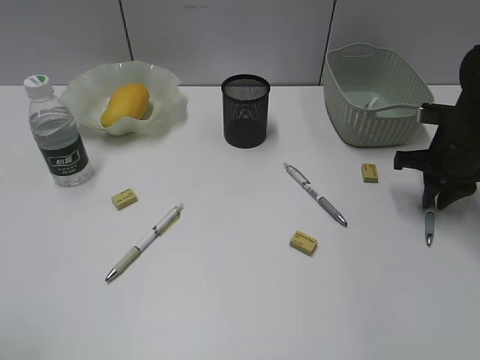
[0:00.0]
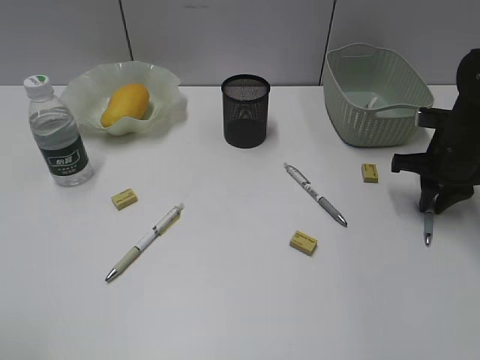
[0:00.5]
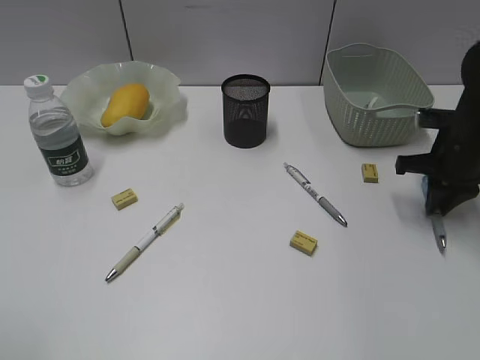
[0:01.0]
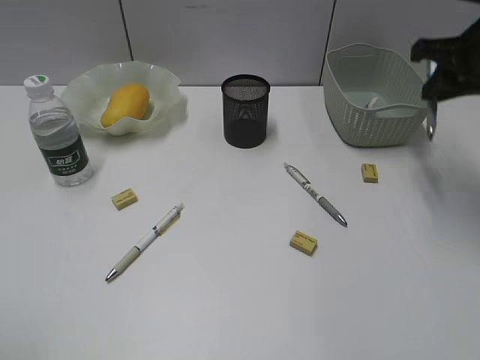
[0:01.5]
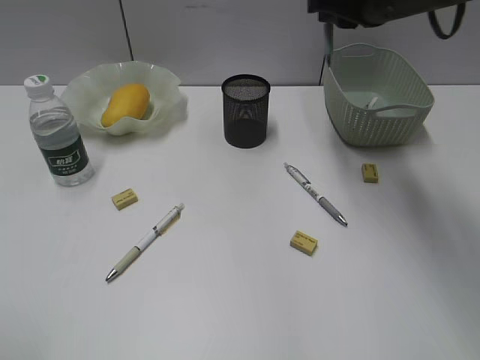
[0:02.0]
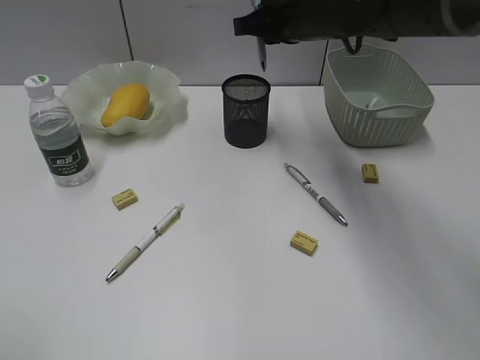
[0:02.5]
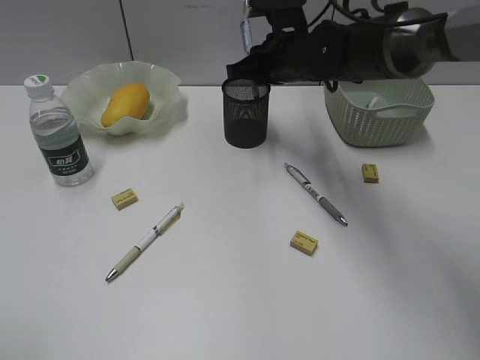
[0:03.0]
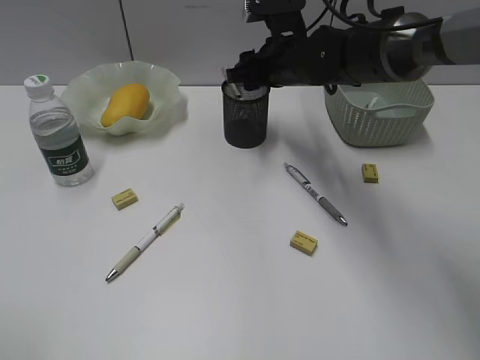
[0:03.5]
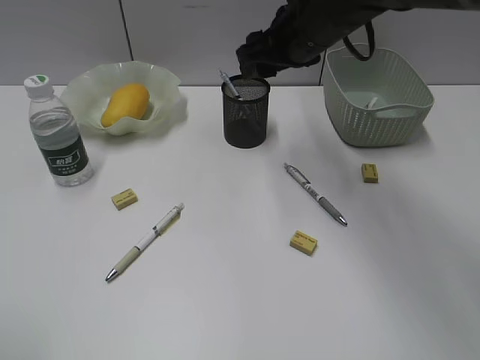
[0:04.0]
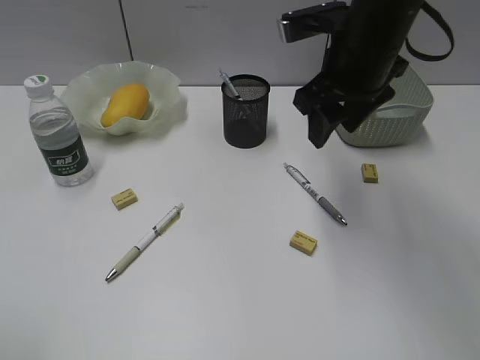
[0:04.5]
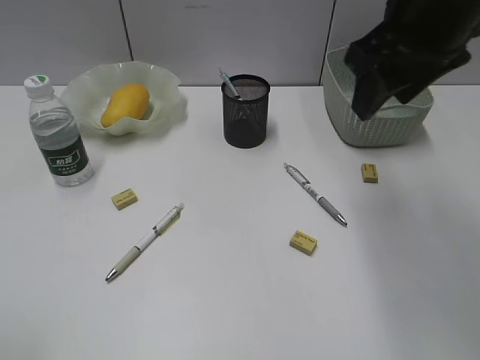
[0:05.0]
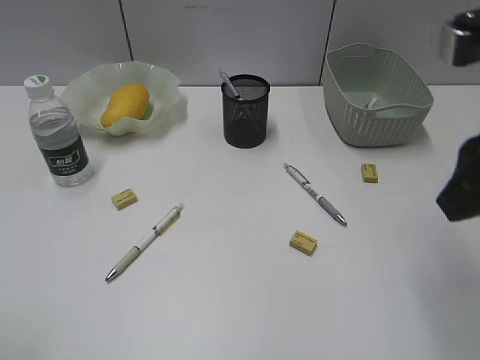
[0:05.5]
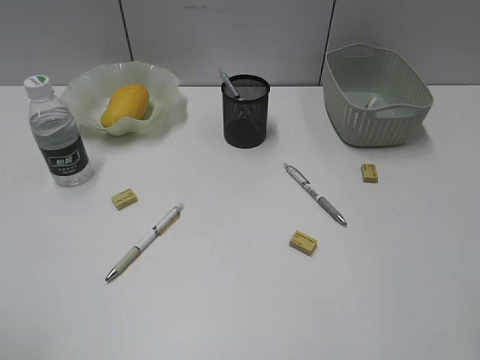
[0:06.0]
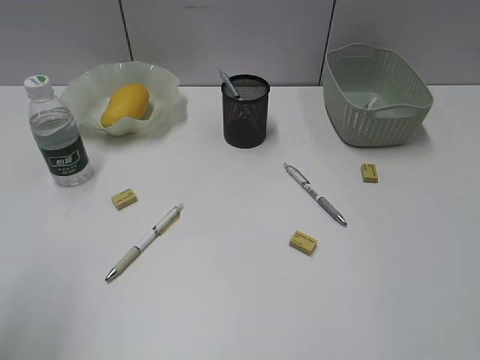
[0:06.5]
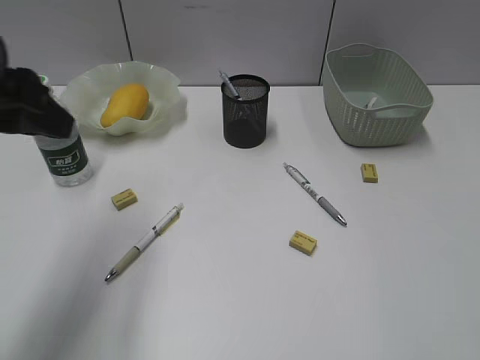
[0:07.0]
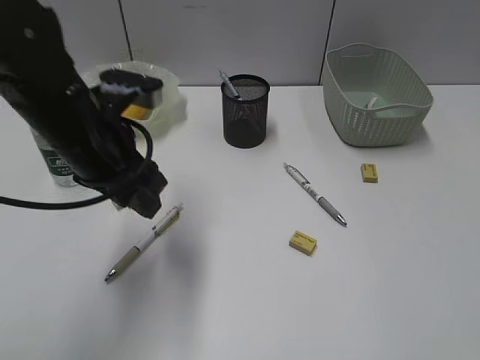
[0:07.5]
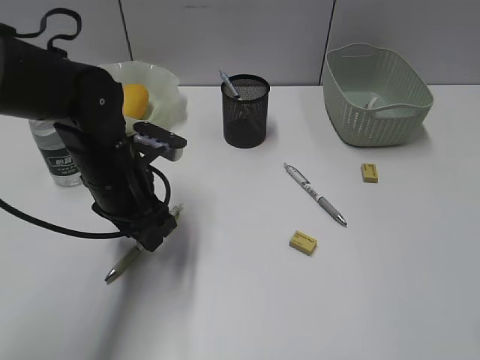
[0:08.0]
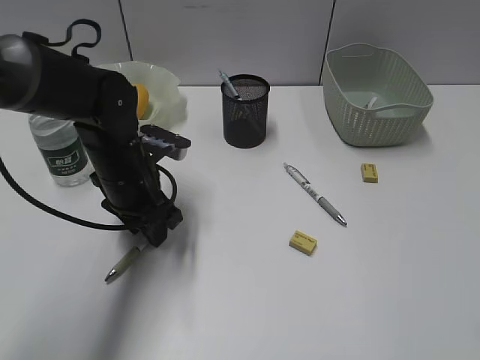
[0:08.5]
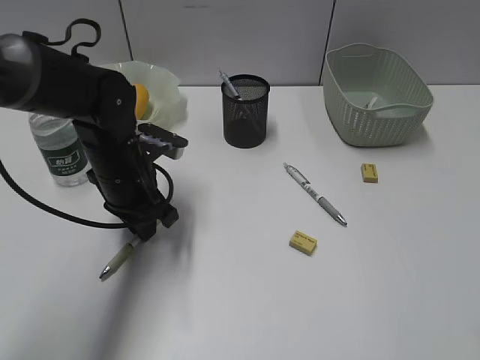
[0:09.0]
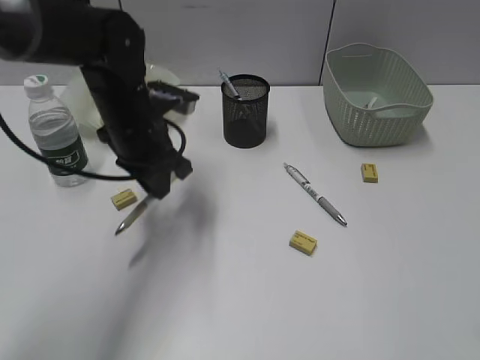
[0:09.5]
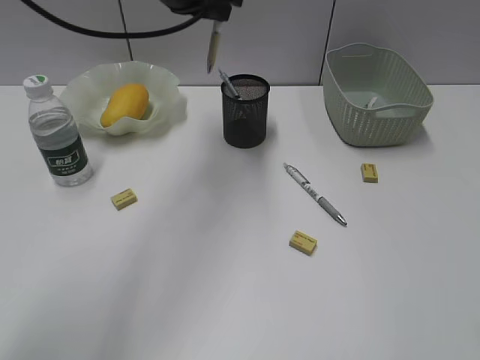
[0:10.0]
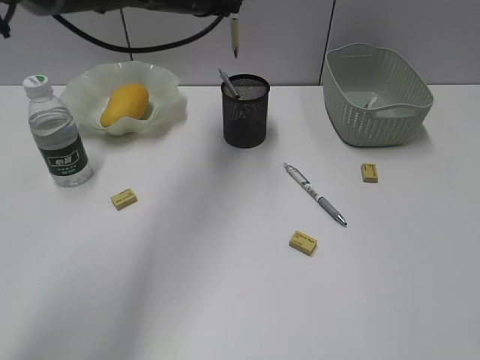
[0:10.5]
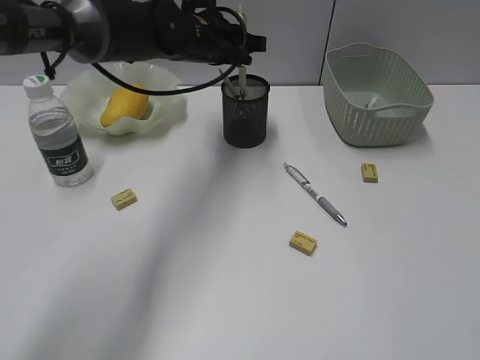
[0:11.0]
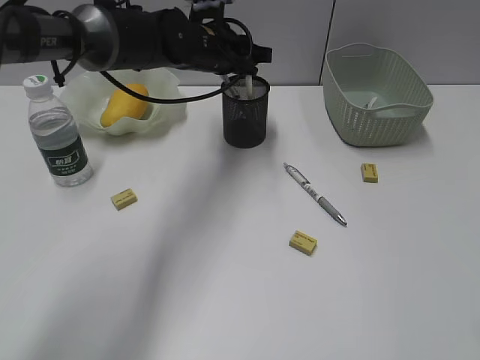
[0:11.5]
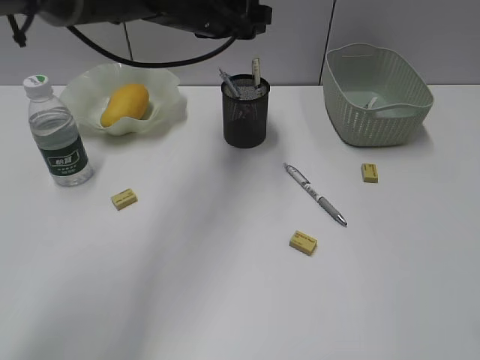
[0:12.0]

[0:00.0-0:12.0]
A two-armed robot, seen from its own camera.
Step, 0:01.0 to 0:03.5: Place the blue pen in pen holder with right gripper.
Step, 0:04.0 to 0:09.0: Grasp the yellow pen with left gripper.
Step, 0:09.5 to 0:11.5: Place the yellow pen in pen holder with left gripper.
0:00.0 to 0:02.0: The right gripper heads upward and to the left, covering roughly 20 cm.
0:02.0 to 0:04.0: The right gripper shifts roughly 10 cm to the left, and opens up.
0:04.0 to 0:06.0: The right gripper goes some 35 cm backward and to the right.
0:06.0 to 0:08.0: The left gripper moves forward, to the right and downward, roughly 35 cm.
0:08.0 to 0:10.0: The left gripper heads upward and forward, covering roughly 20 cm, and closes its fingers.
0:10.0 to 0:12.0: The left gripper travels downward by some 5 cm, and opens.

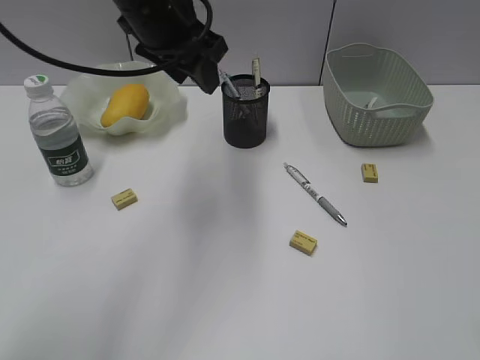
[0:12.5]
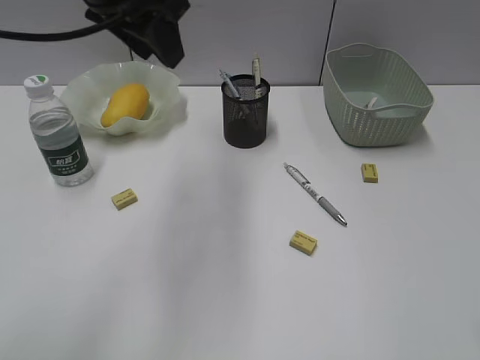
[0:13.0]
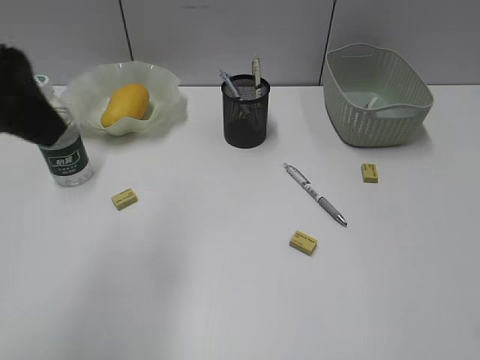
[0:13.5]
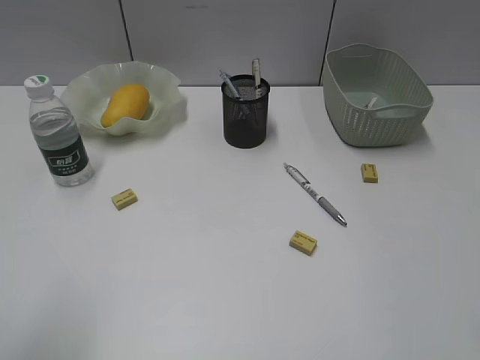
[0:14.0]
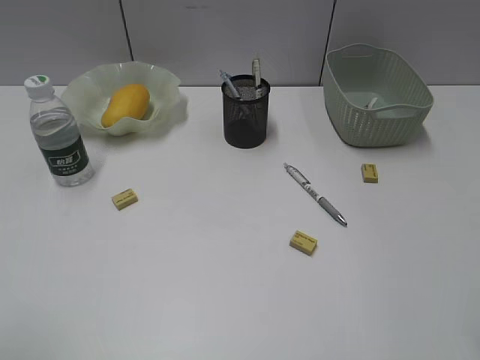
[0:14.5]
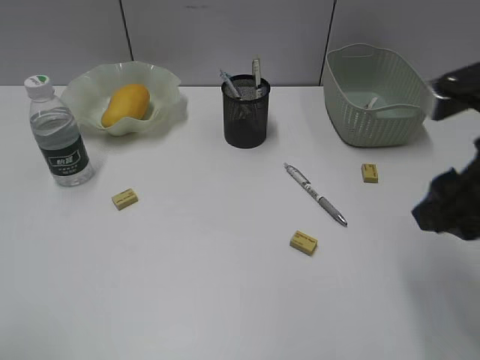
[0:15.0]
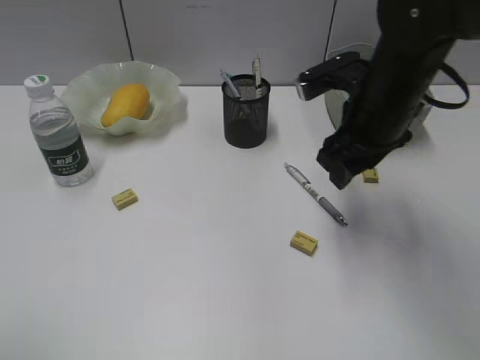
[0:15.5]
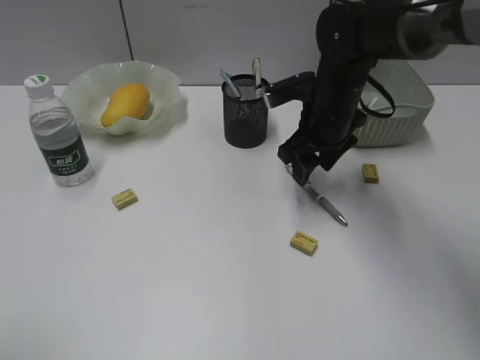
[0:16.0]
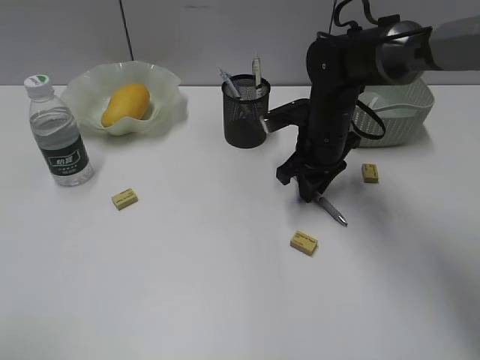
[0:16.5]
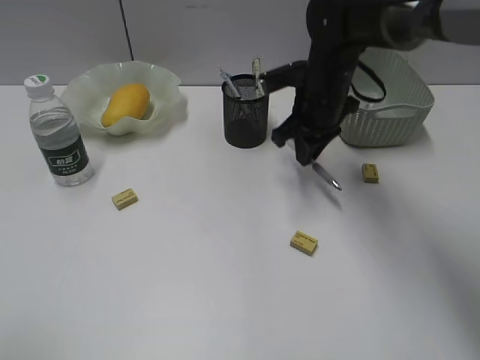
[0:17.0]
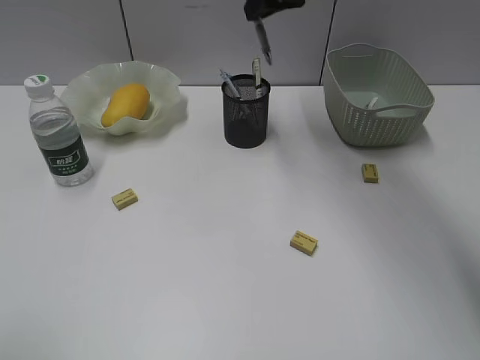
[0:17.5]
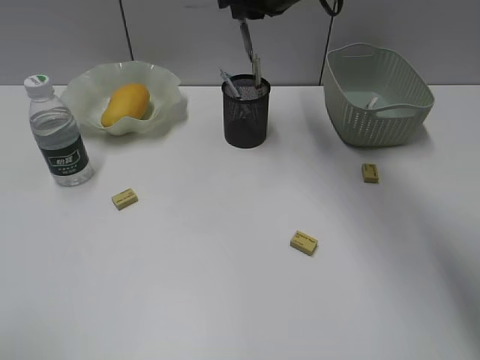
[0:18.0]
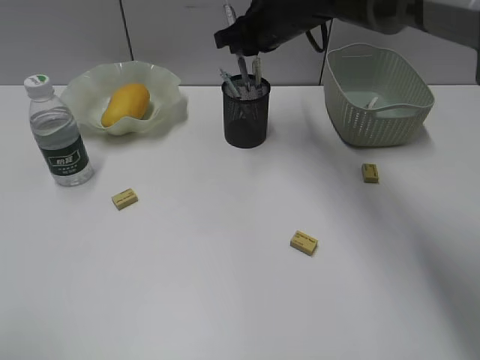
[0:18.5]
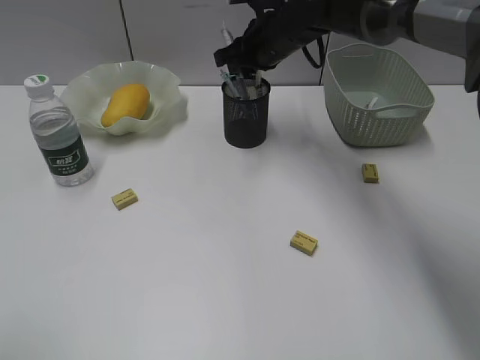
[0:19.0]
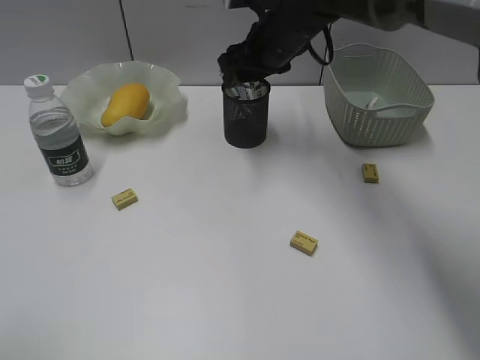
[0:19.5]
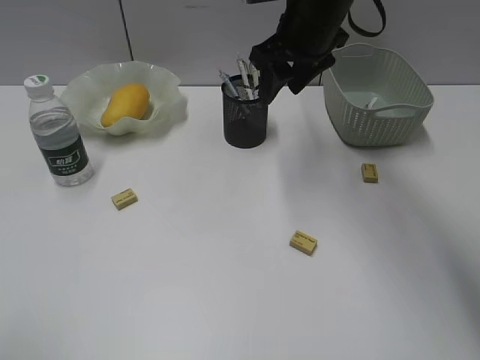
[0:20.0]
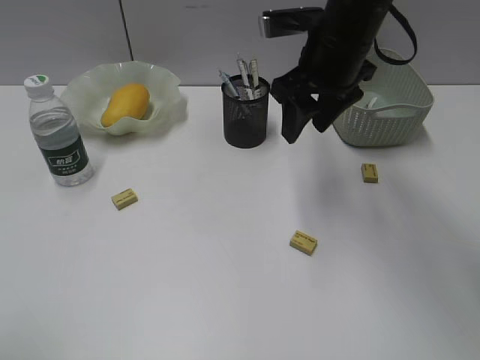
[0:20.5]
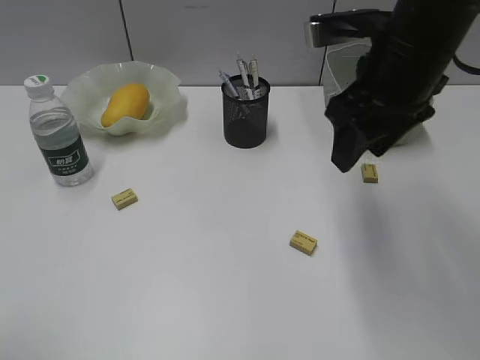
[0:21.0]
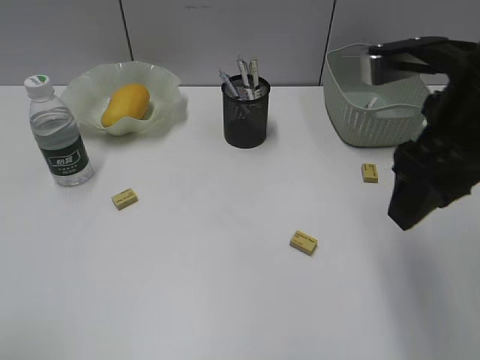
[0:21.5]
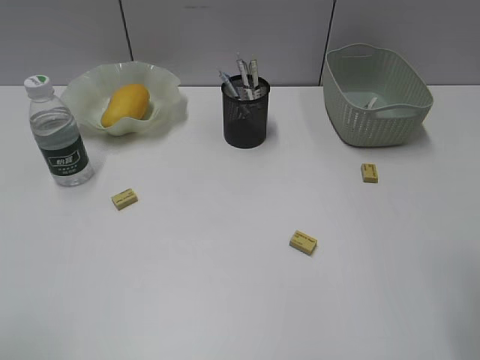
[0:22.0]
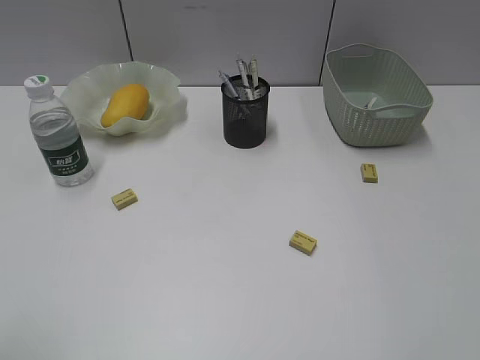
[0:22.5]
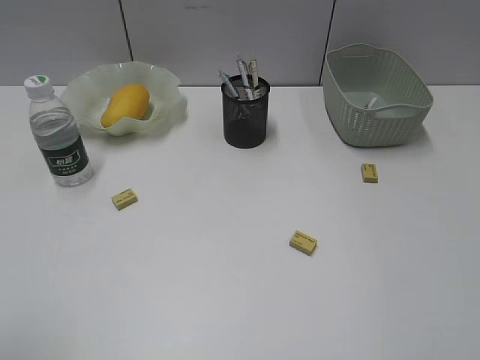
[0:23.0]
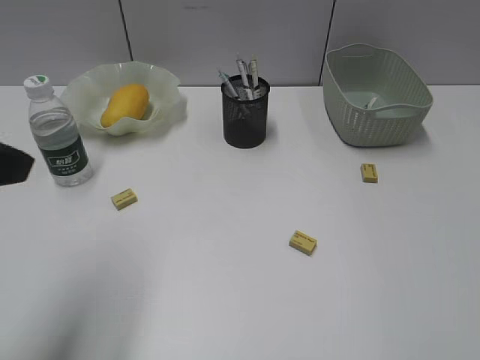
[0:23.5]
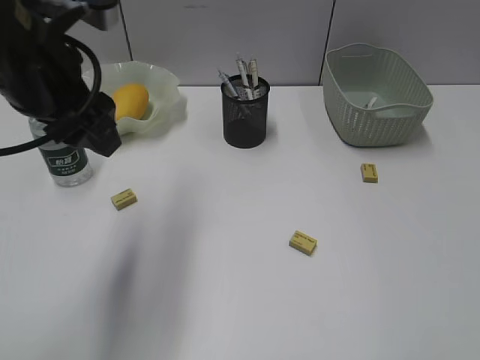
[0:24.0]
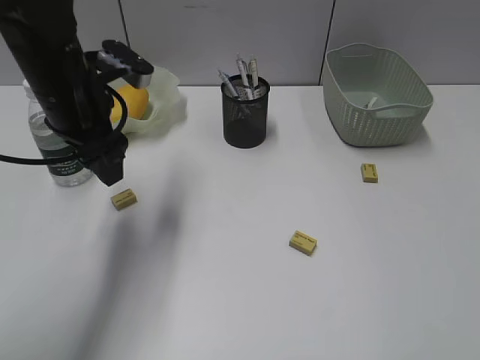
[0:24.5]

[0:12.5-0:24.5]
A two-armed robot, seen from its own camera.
Step, 0:12.5 to 0:16.5: Grasp the gray pen with right gripper.
Step, 0:17.0 to 0:19.0: Place the gray pen in pen holder with right gripper.
0:12.5 to 0:14.5: The left gripper is displaced backward and to the left by some 40 cm.
0:14.5 to 0:16.5: The right gripper travels forward, downward and to the left by roughly 40 cm, and closes up.
0:16.5 to 0:18.5: The right gripper moves upward, forward and to the left, about 15 cm.
0:18.5 to 0:20.5: The right gripper travels backward by approximately 10 cm, and opens.
0:20.5 to 0:22.5: The right gripper is displaced backward and to the right by approximately 35 cm.
0:22.5 to 0:24.5: The left gripper goes roughly 35 cm forward and to the right.

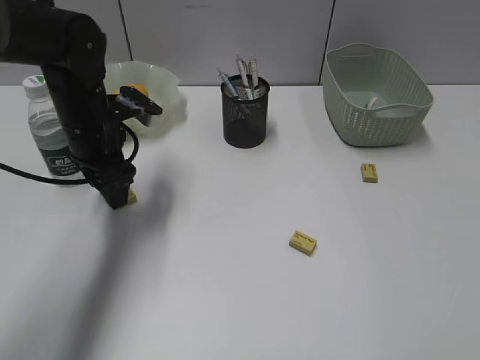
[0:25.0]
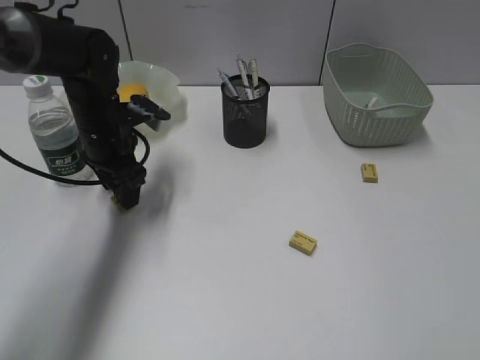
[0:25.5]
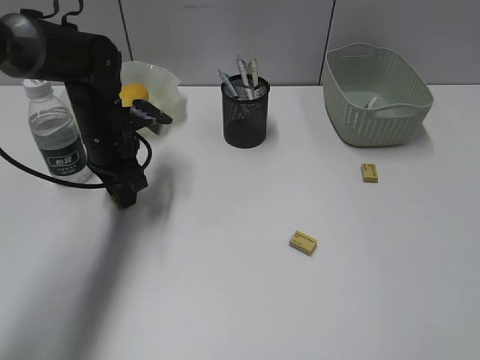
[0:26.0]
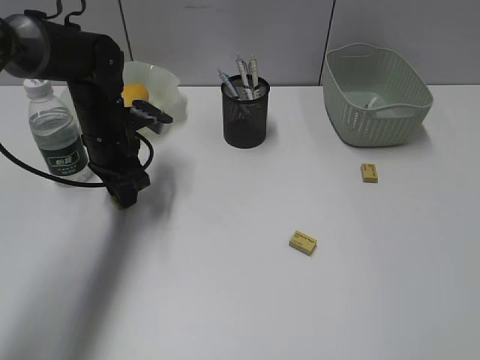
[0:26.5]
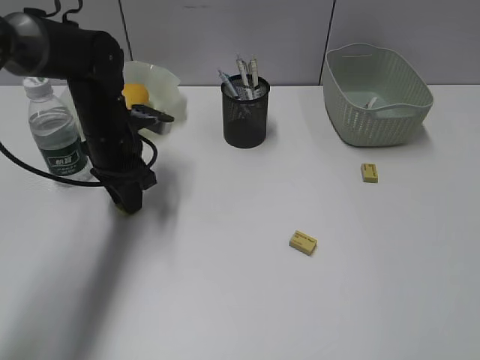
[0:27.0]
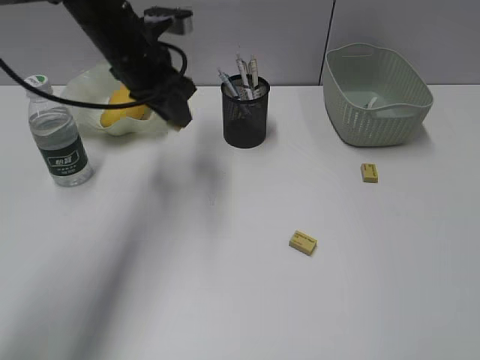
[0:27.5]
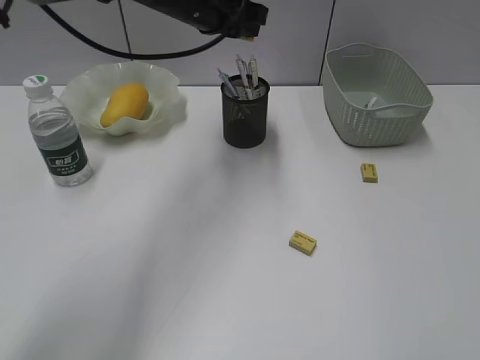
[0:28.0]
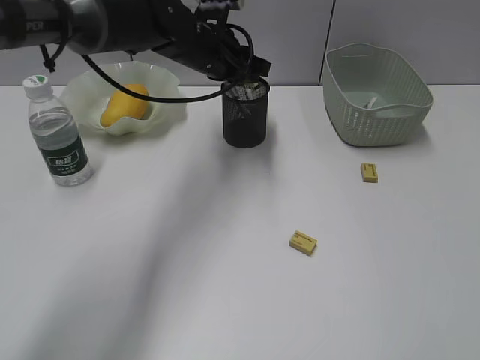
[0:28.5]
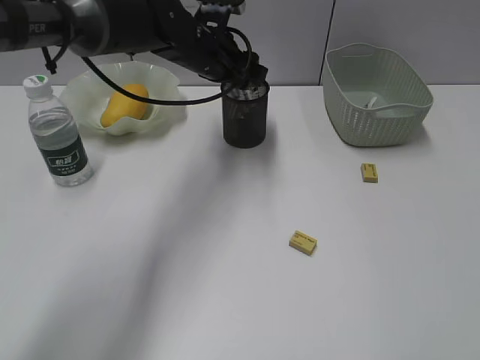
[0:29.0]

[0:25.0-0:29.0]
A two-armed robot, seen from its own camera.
Step, 0:27.0 to 0:28.5: Place the eraser in pen holder with left gripper.
0:25.0 to 0:27.0: The left gripper closes its fingers.
0:27.0 to 0:29.0: The left gripper goes roughly 15 cm to the right, upward and forward, and opens its fingers.
